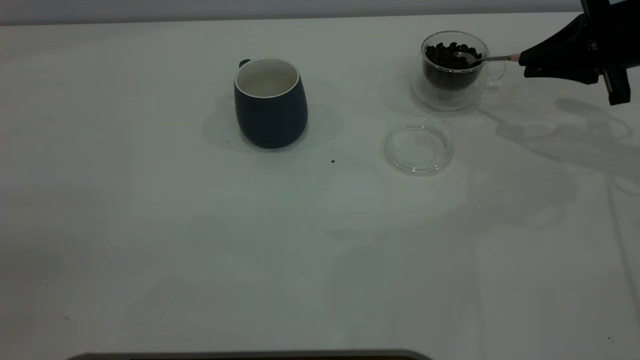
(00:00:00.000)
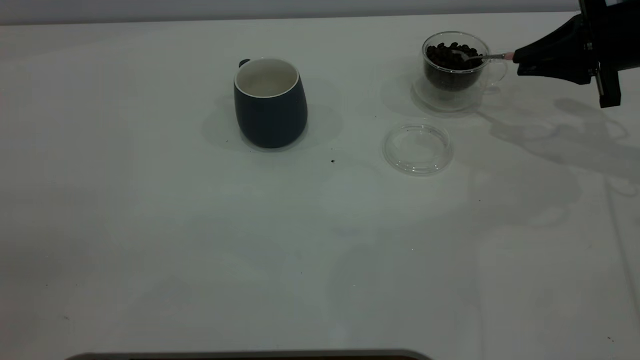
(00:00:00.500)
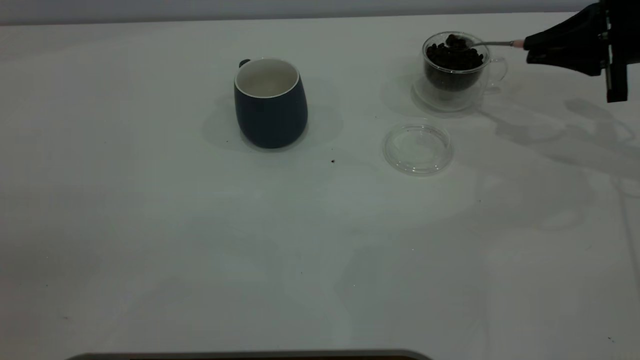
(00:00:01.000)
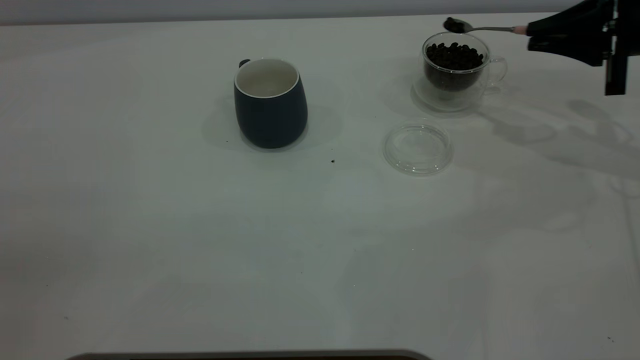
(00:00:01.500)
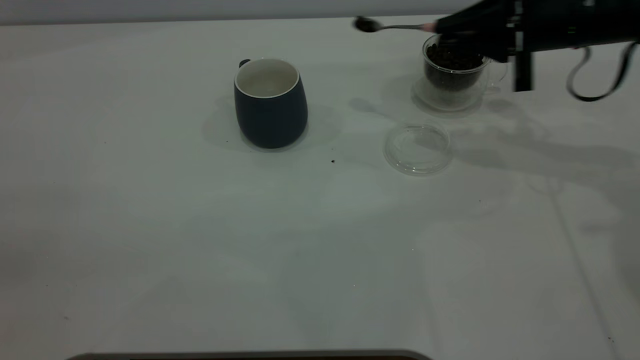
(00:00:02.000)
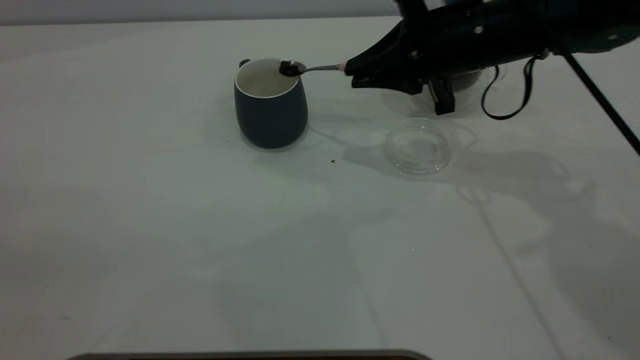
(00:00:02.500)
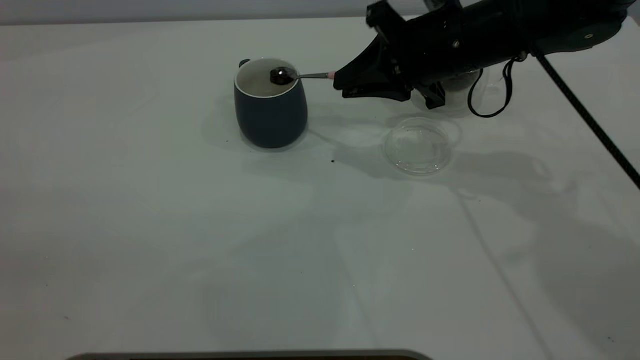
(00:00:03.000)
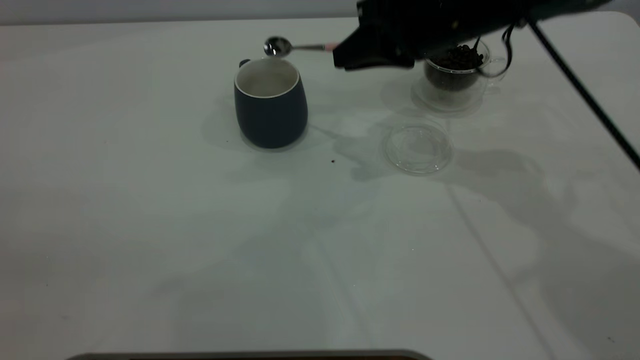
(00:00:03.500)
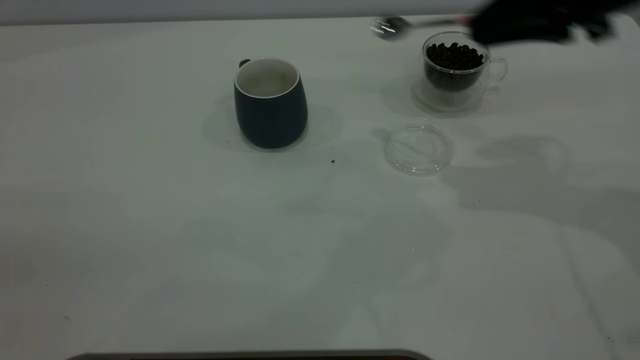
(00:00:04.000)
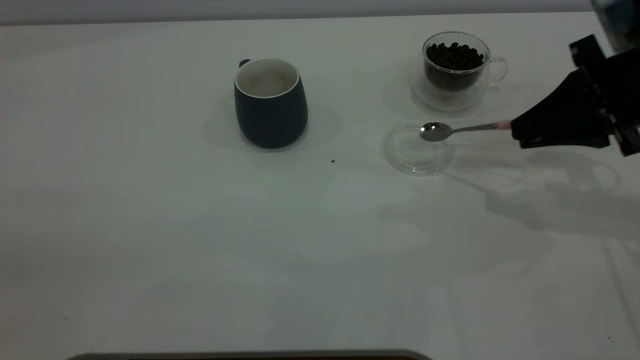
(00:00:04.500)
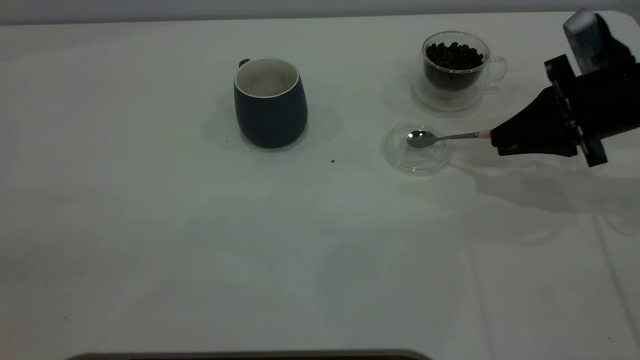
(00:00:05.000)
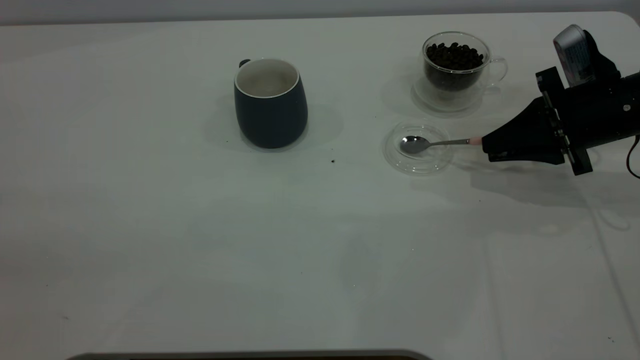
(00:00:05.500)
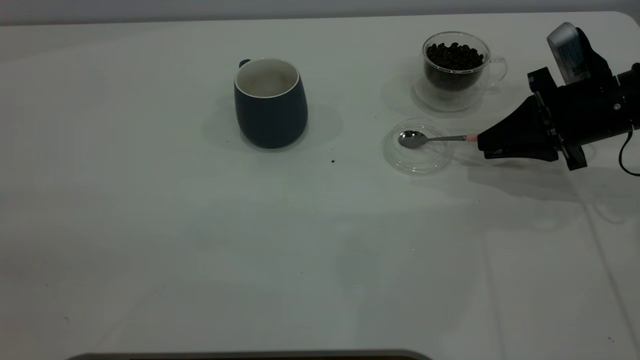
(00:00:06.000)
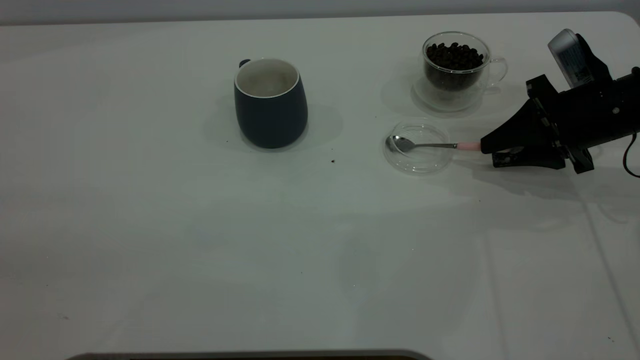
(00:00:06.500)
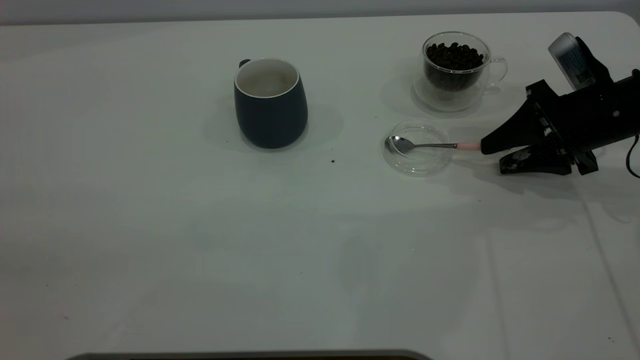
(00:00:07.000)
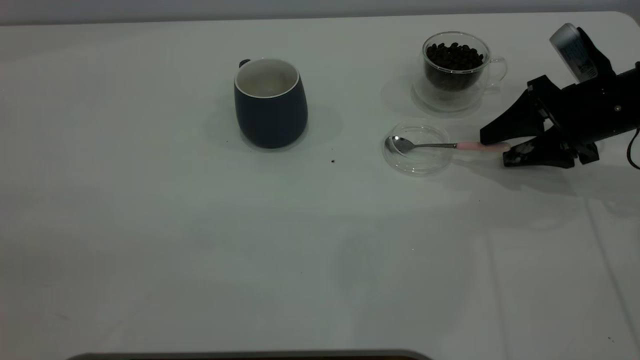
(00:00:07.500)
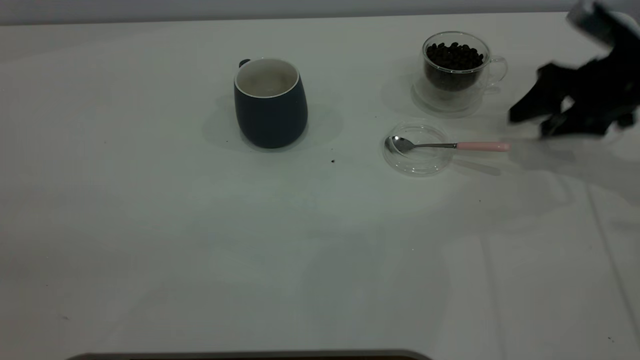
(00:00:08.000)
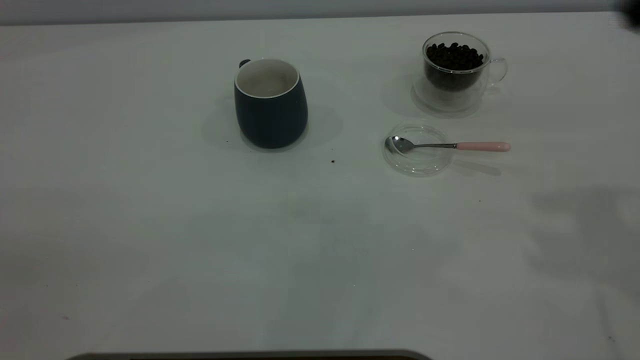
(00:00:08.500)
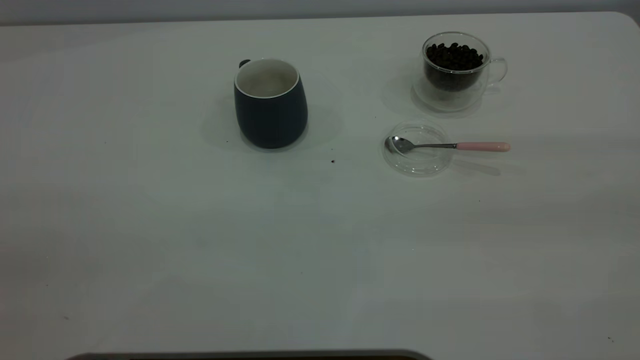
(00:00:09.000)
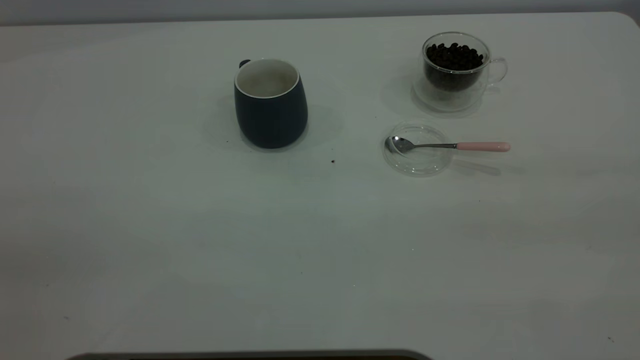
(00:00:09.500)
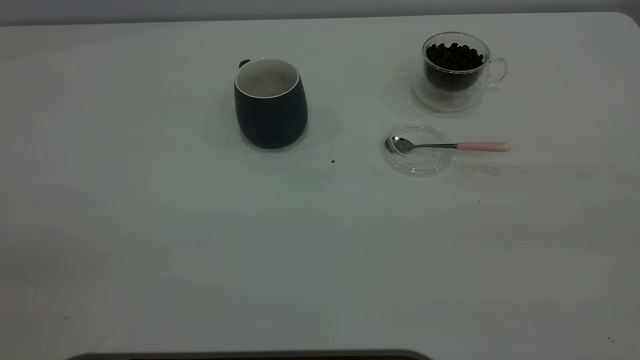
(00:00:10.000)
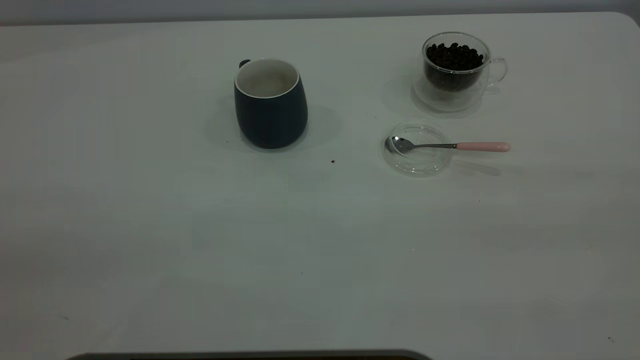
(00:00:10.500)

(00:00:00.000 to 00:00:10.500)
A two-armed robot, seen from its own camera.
Task of the whole recording: the left gripper place the grey cup in the center of the table, the right gripper take the pink spoon from the cup lid and scoop out the coffee beans from the coffee cup and put them into the grey cup, the right gripper put the spoon back into the cup lid.
Step, 00:00:00.000 - 00:00:03.000: Scoop a spoonful of beans into the cup.
Step, 00:00:03.500 - 00:00:08.000: Place the spoon back in its original place.
00:00:00.000 - 00:00:02.000: The right gripper goes some 10 cm to the left.
00:00:02.000 - 00:00:04.000: The right gripper shifts approximately 10 cm backward and upward, and reaches some 10 cm to the left, then returns.
00:00:04.000 - 00:00:06.500: The right gripper is displaced downward by approximately 15 cm, and opens its fingers.
00:00:06.500 - 00:00:08.500: The right gripper heads upward and backward, covering roughly 30 cm, and opens.
